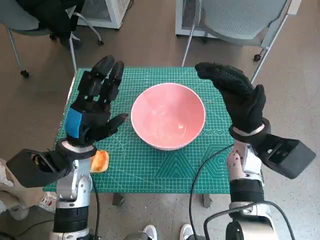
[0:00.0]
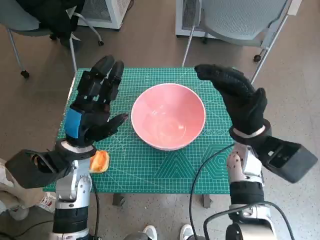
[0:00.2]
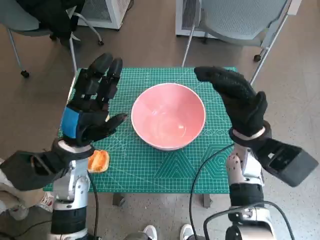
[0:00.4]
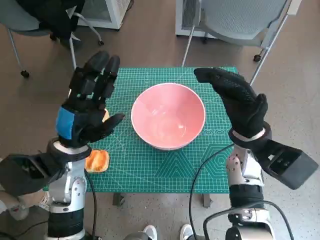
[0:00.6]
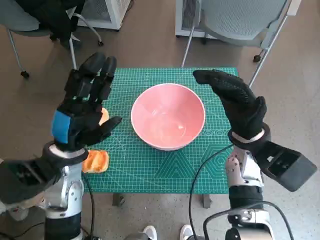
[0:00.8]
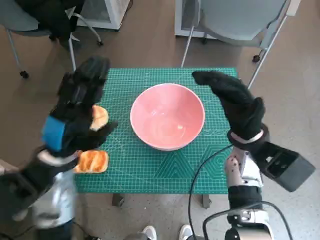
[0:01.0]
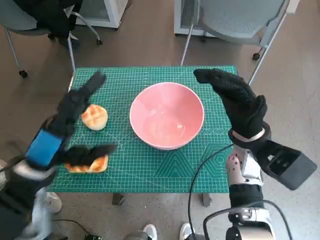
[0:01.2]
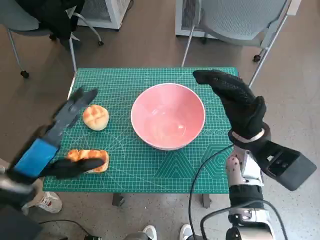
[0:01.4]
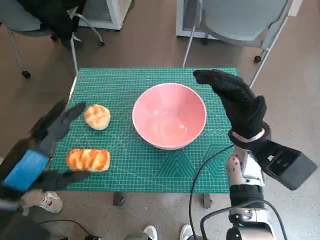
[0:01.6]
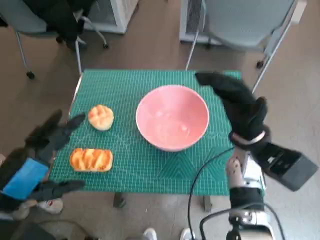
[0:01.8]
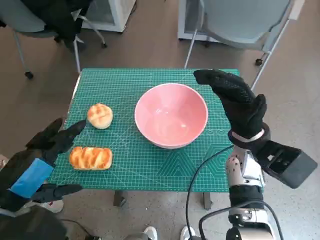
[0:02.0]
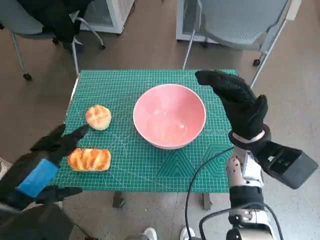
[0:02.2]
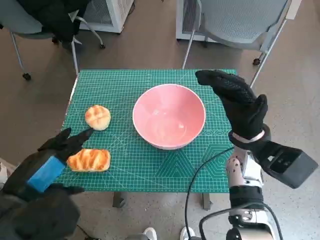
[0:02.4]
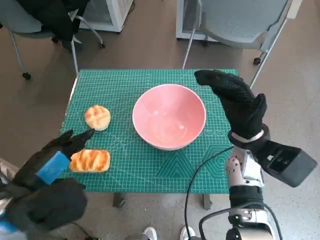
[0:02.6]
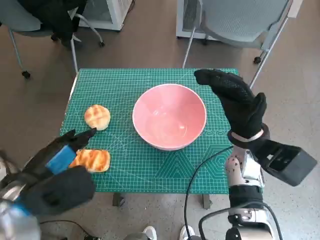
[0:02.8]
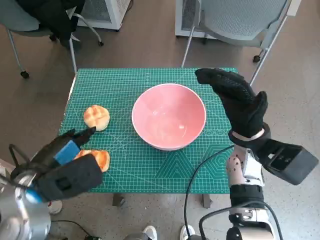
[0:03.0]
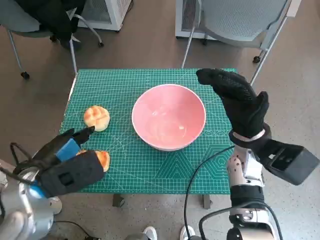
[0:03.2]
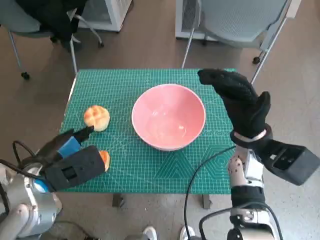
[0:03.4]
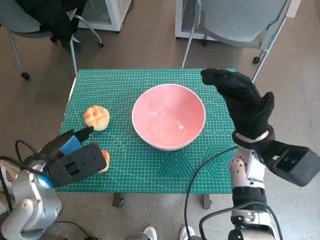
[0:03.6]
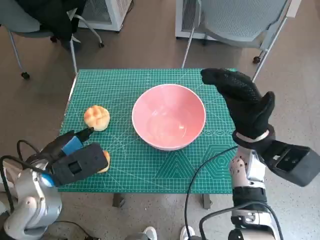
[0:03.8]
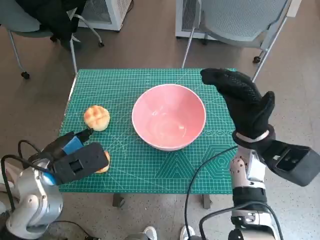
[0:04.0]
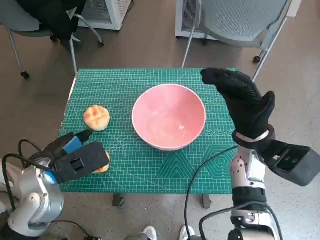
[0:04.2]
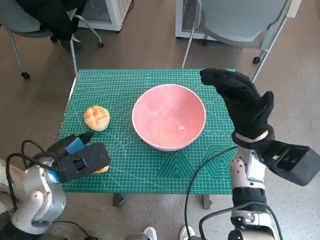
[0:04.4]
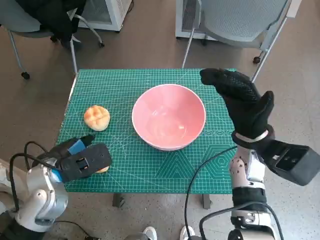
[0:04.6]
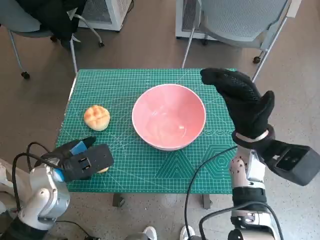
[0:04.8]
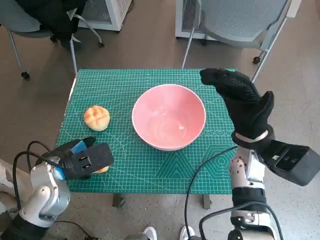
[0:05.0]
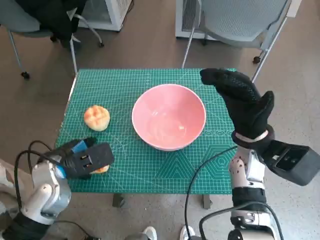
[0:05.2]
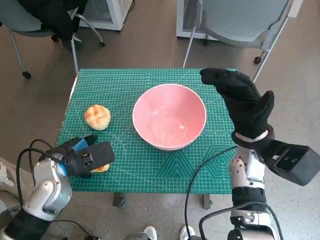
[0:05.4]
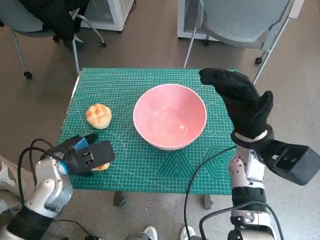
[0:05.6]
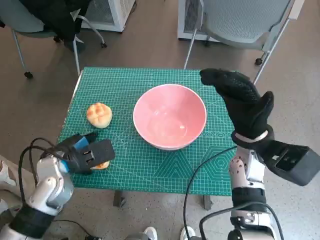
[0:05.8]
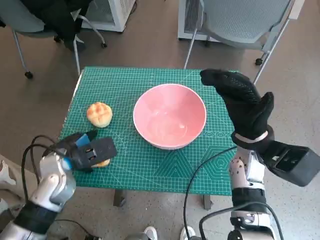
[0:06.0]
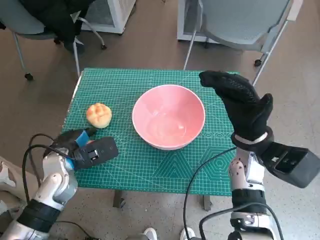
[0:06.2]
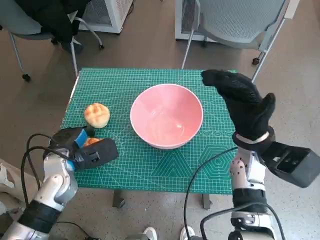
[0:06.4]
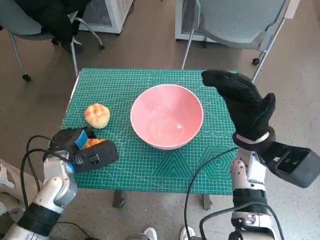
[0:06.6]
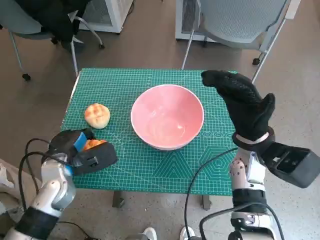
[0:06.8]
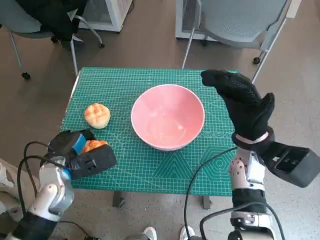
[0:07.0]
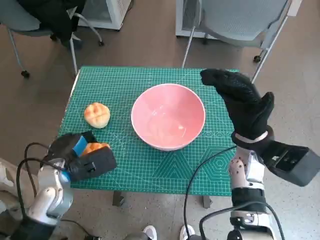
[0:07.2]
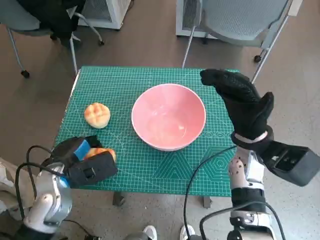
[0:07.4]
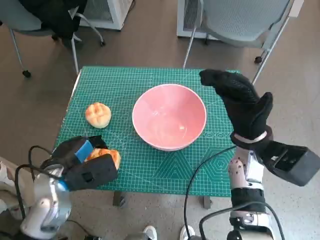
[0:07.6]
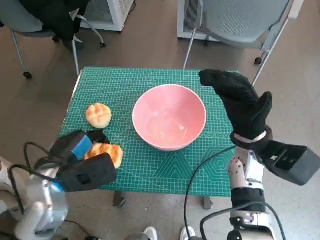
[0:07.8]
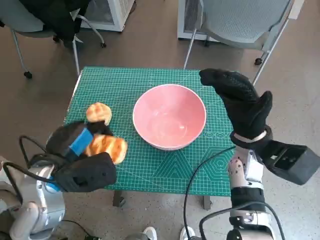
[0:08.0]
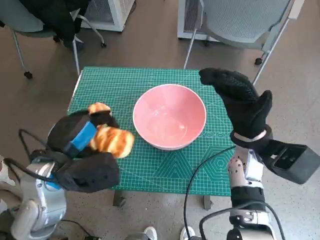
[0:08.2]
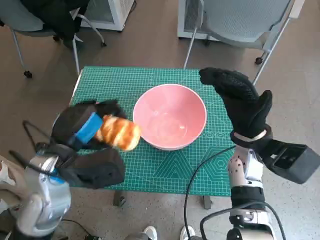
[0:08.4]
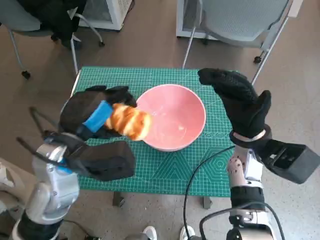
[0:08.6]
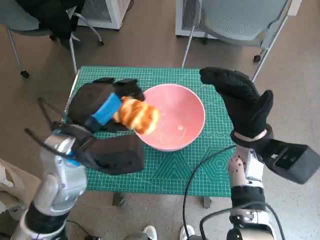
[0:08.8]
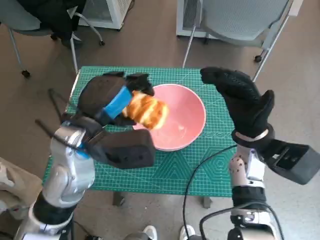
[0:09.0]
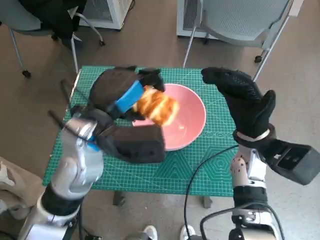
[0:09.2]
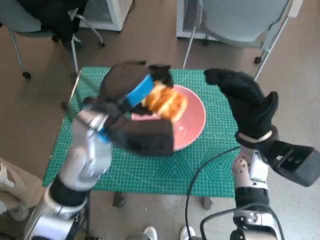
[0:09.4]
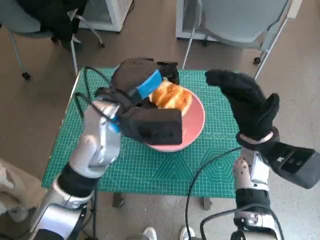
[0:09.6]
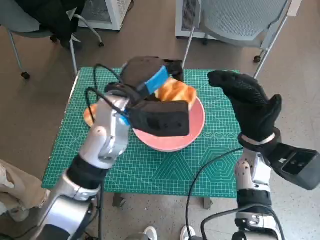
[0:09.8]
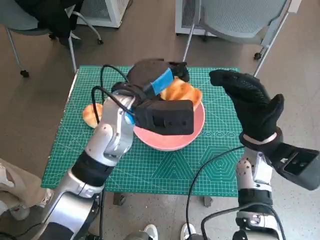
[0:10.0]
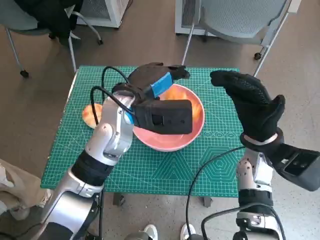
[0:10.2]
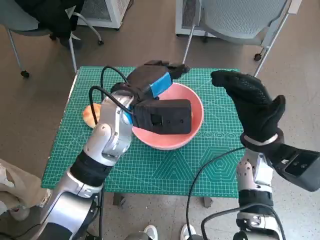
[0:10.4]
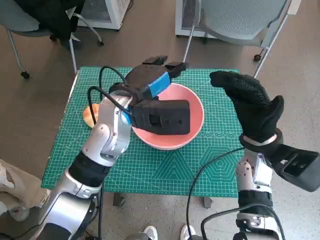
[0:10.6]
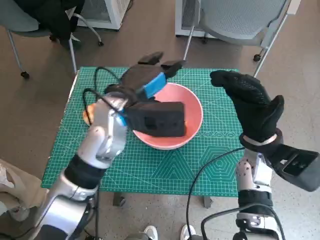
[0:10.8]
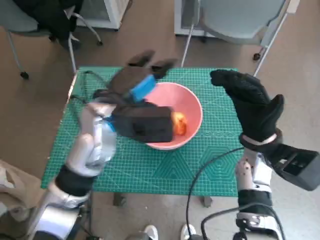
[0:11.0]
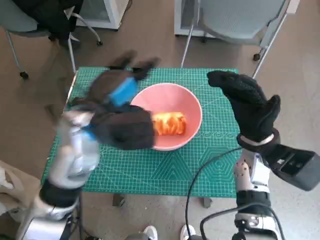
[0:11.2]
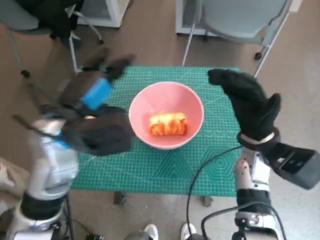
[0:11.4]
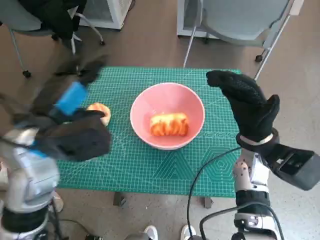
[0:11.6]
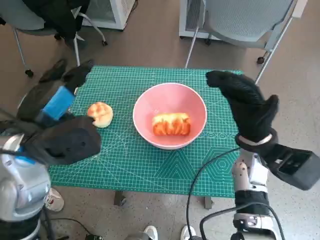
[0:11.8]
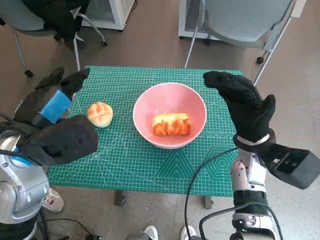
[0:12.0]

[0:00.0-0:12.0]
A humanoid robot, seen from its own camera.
Step, 0:00.0 to 0:05.6: Grasp the long bread with left hand.
Step, 0:05.8 to 0:10.4: Place the long bread in pink bowl with left hand.
0:00.0 to 0:01.6: The left hand heads backward and upward, covering some 15 cm.
0:01.6 to 0:03.0: The left hand changes place by approximately 5 cm.
0:03.0 to 0:04.4: The left hand shifts by about 5 cm.
0:04.4 to 0:06.0: The left hand ends up approximately 5 cm from where it was.
0:06.0 to 0:07.6: There are only small adjustments of the hands.
0:07.6 to 0:09.0: The left hand goes about 15 cm upward and to the right.
0:09.0 to 0:10.4: The left hand travels forward and to the right by some 10 cm.
0:10.4 to 0:12.0: The left hand is displaced to the left and backward by approximately 15 cm.

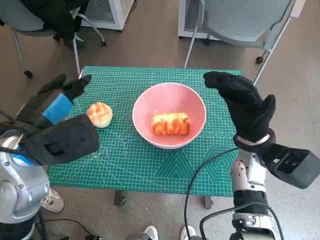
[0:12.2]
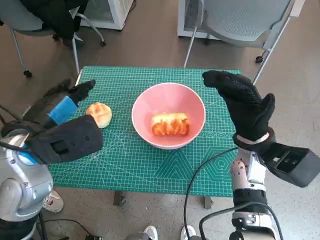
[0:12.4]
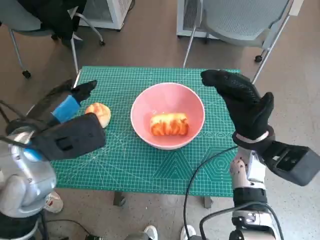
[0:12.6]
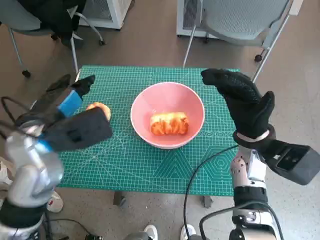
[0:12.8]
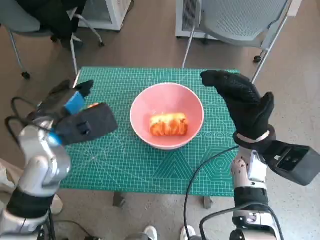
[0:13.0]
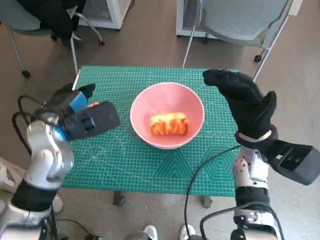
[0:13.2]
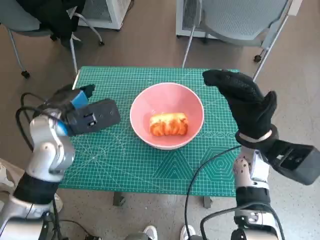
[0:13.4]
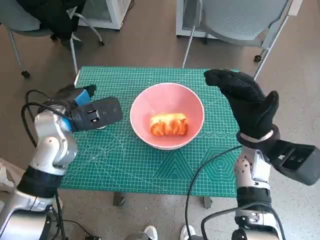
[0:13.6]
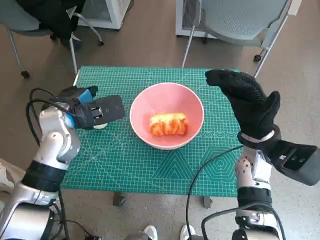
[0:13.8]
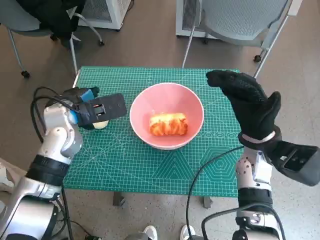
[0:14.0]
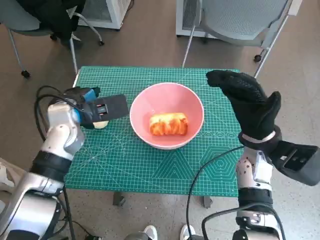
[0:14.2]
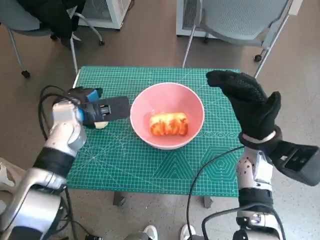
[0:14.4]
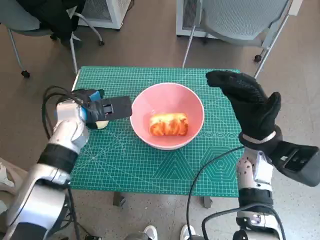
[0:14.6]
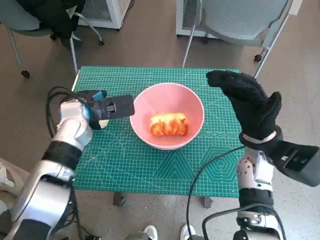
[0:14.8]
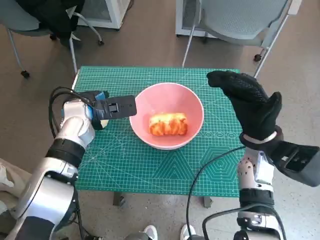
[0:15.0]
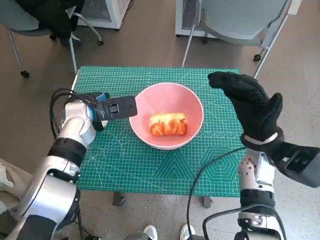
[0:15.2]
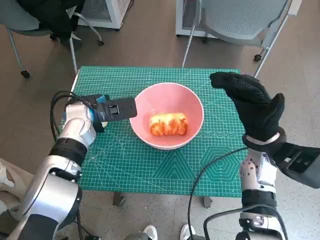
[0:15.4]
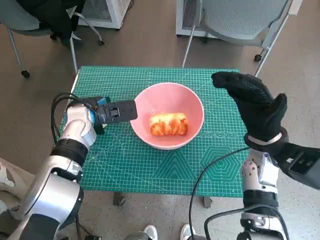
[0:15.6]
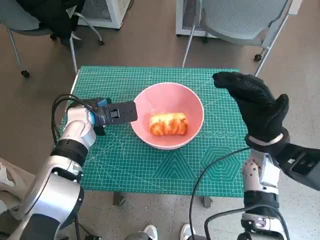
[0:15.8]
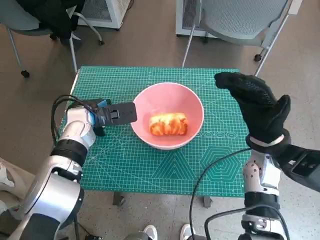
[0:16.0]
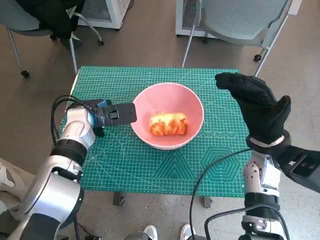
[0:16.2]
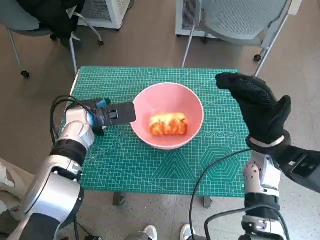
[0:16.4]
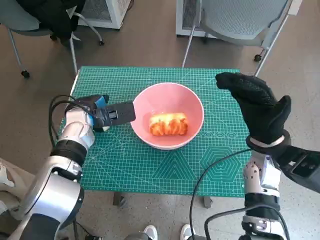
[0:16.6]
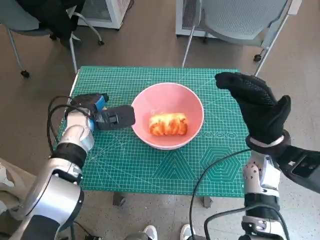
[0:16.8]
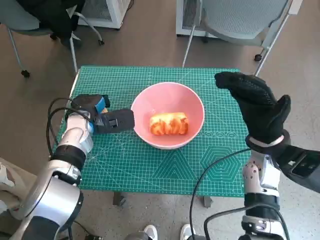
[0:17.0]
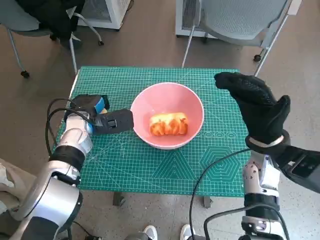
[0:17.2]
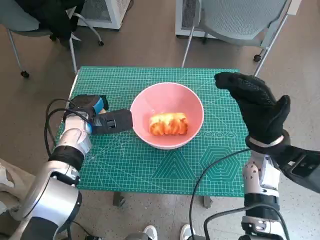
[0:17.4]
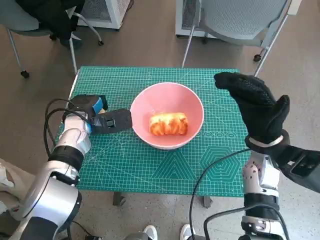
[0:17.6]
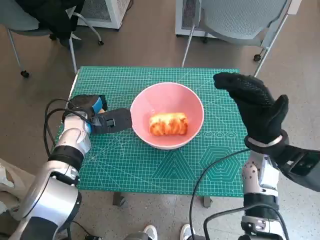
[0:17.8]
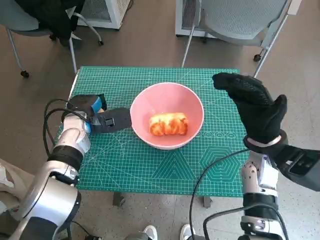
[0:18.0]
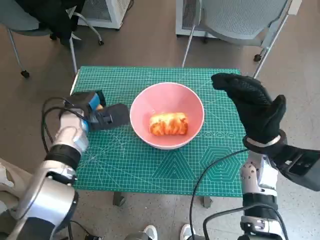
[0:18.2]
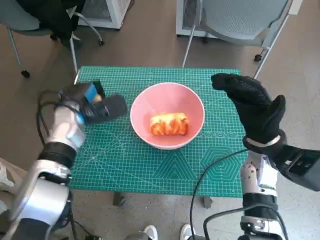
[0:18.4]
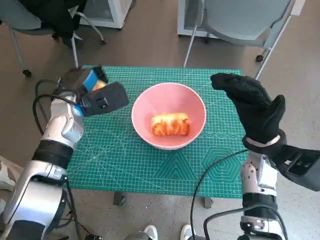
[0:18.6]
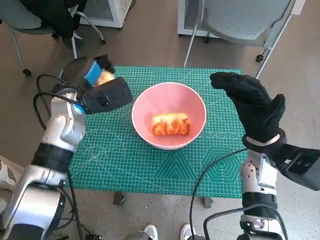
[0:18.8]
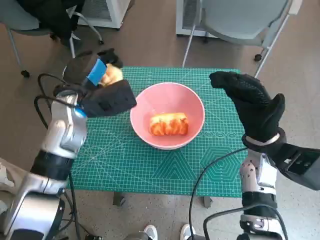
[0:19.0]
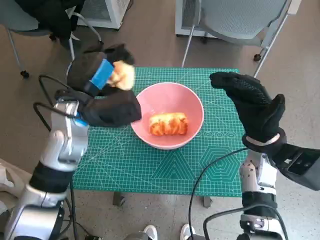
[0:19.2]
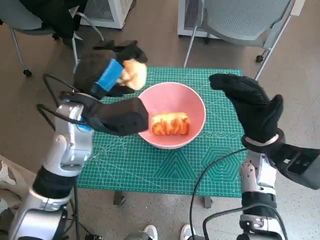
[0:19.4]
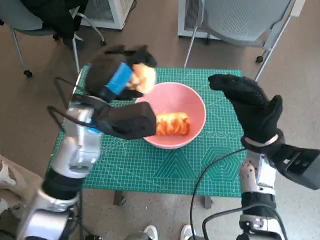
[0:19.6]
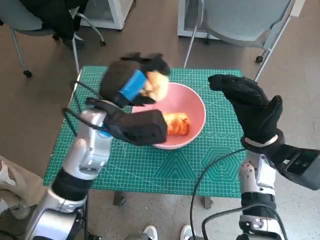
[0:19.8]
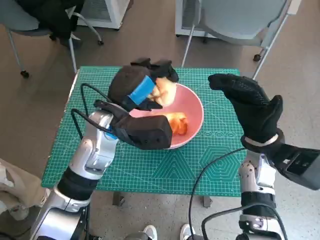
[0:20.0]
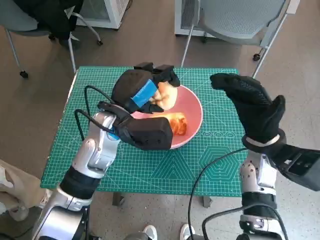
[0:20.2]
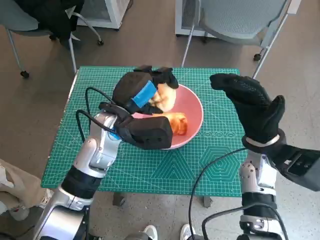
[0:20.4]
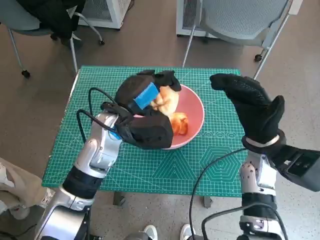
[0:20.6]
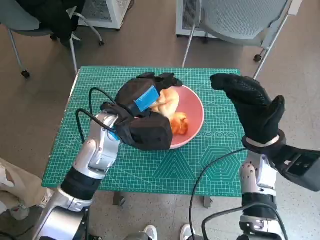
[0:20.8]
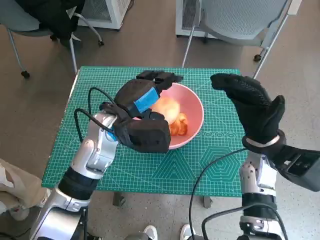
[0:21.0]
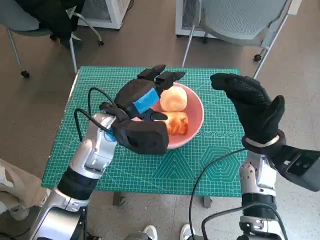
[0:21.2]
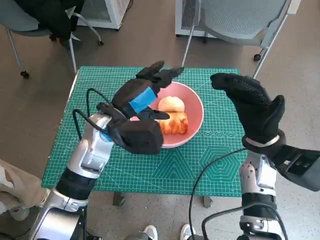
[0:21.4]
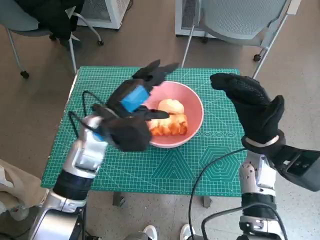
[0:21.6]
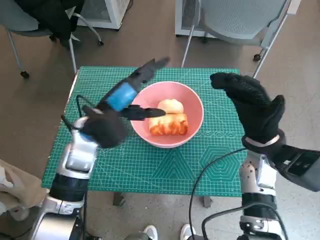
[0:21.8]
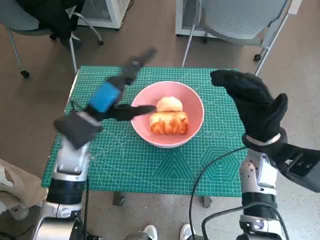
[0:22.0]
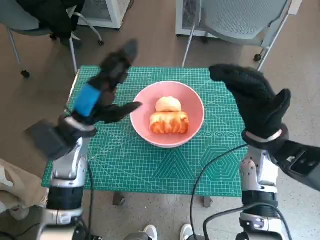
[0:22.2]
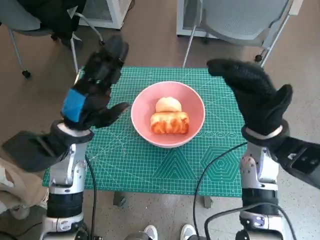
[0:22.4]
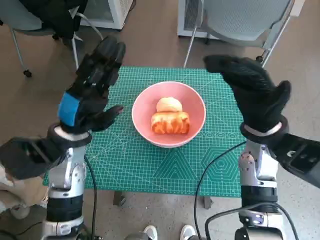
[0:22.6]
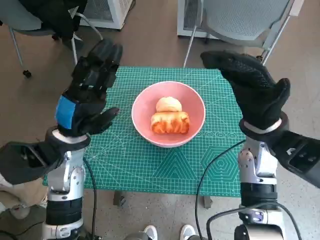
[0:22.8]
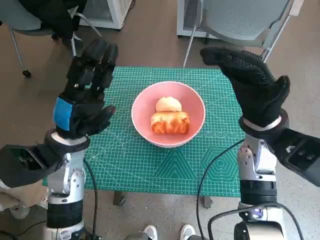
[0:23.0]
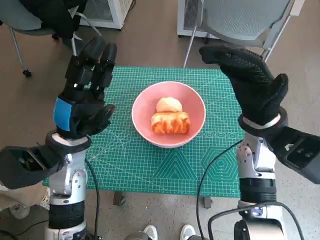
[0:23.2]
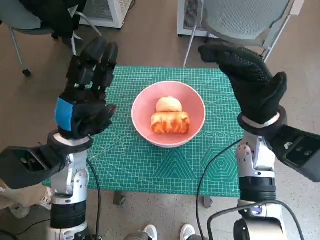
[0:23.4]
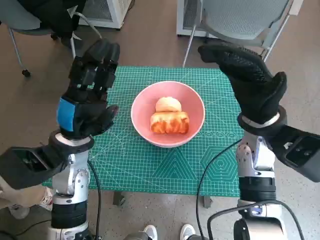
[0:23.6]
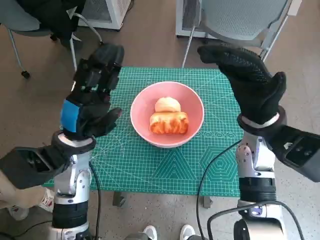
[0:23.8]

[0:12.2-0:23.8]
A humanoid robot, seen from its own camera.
Step, 0:12.2 to 0:17.2: Grasp the round bread with left hand.
Step, 0:17.4 to 0:21.6: Place the round bread in pink bowl with left hand.
0:12.2 to 0:13.6: The left hand moves forward, roughly 10 cm.
0:13.6 to 0:15.0: The left hand travels forward by about 5 cm.
0:15.0 to 0:18.0: There are only small adjustments of the hands.
0:18.0 to 0:19.4: The left hand heads upward and to the right, covering some 10 cm.
0:19.4 to 0:21.0: The left hand moves about 5 cm.
0:21.0 to 0:22.4: The left hand shifts roughly 10 cm to the left.
